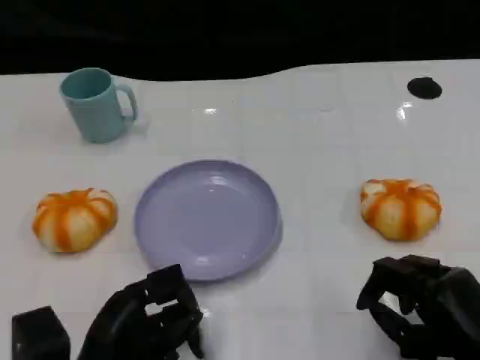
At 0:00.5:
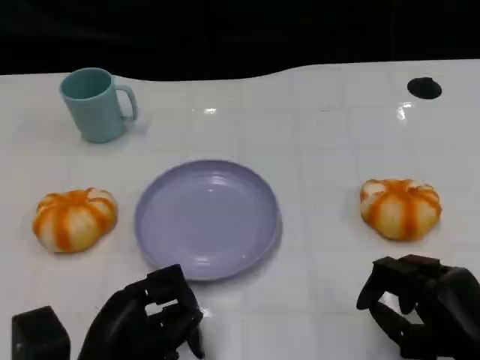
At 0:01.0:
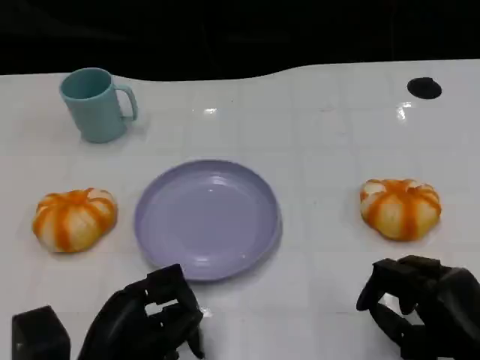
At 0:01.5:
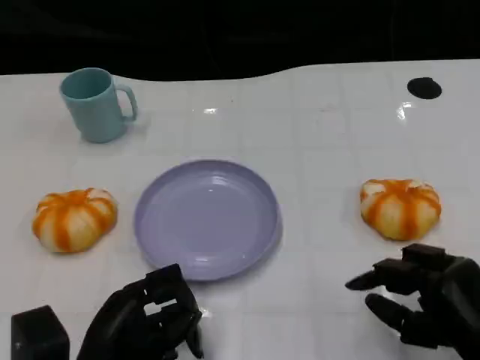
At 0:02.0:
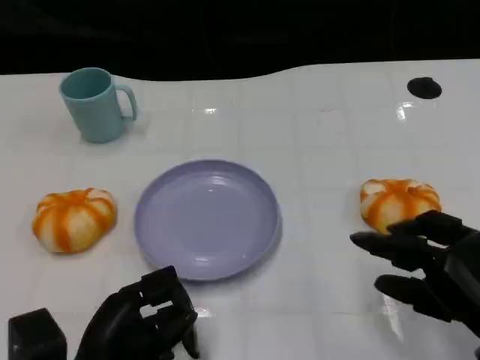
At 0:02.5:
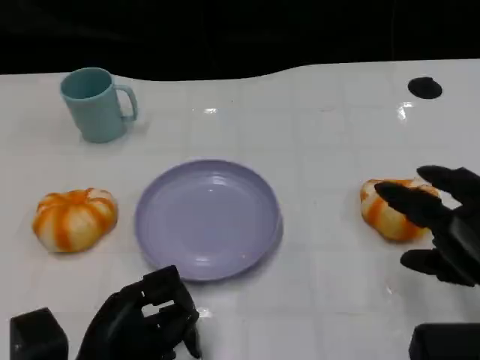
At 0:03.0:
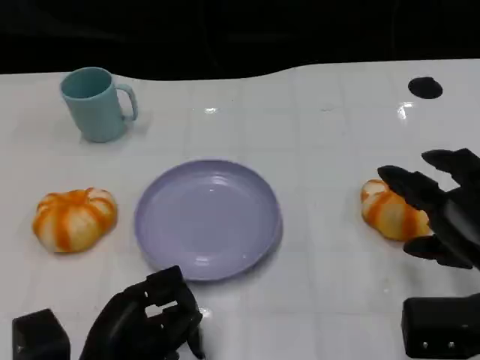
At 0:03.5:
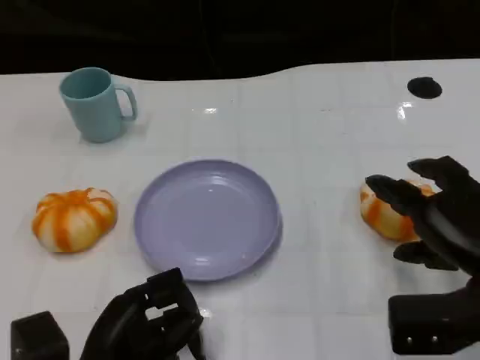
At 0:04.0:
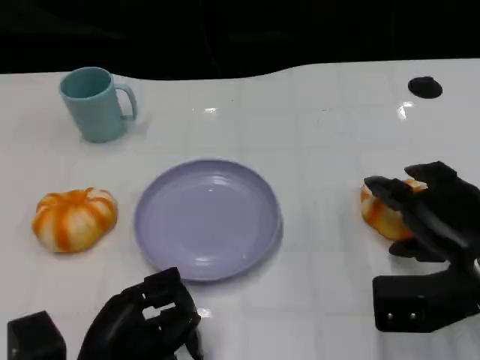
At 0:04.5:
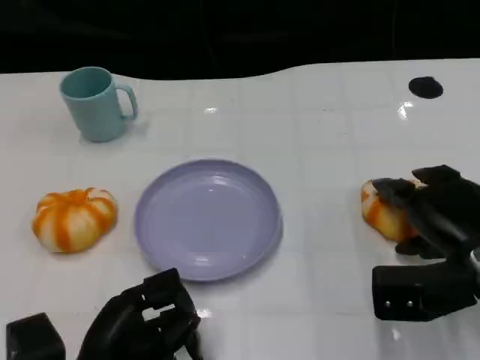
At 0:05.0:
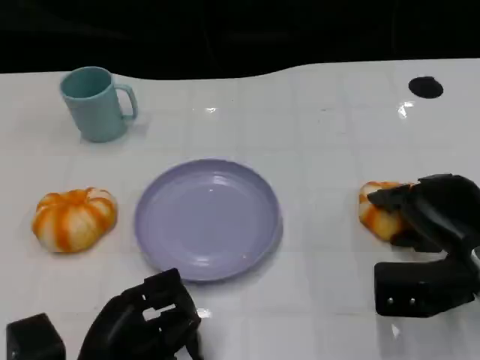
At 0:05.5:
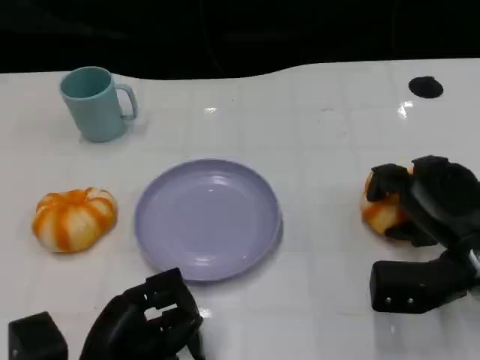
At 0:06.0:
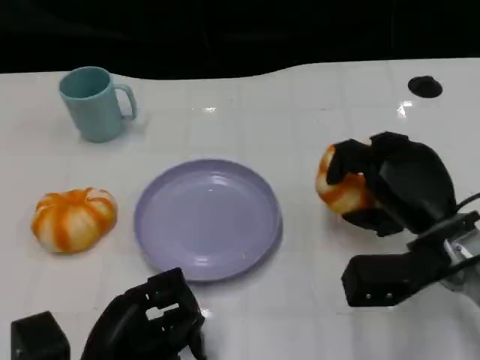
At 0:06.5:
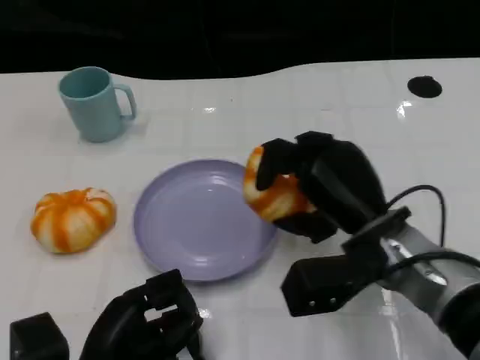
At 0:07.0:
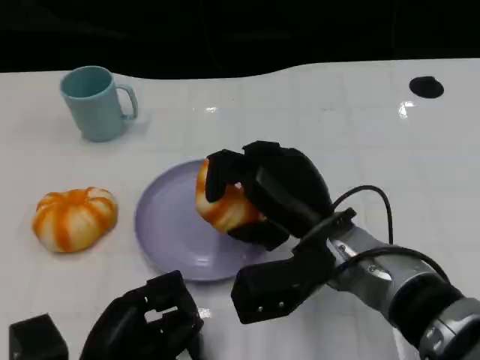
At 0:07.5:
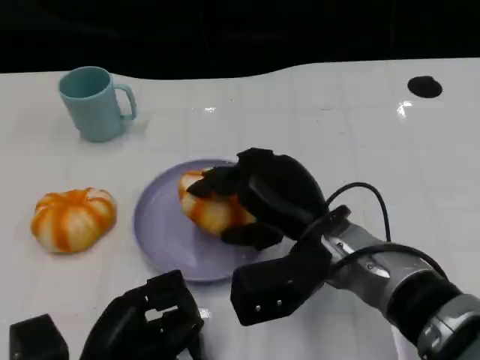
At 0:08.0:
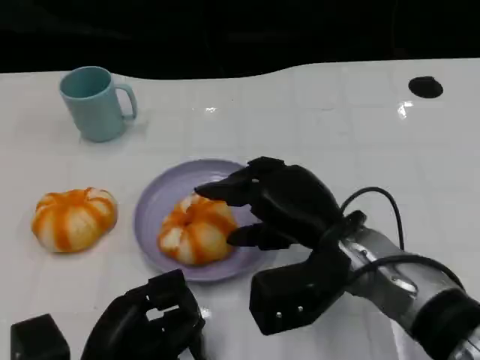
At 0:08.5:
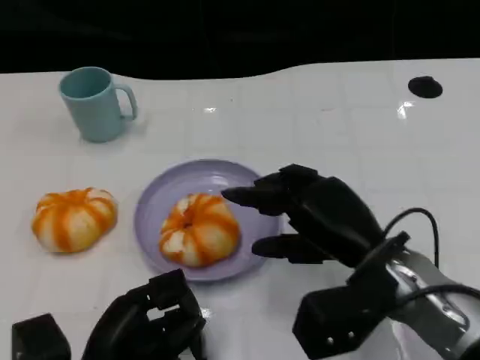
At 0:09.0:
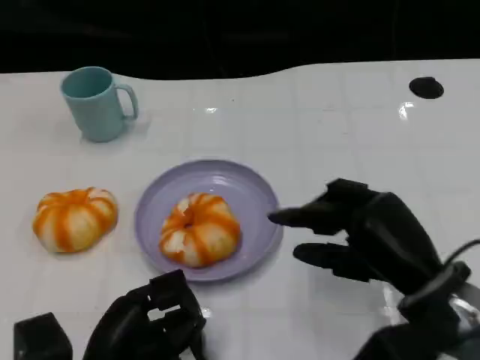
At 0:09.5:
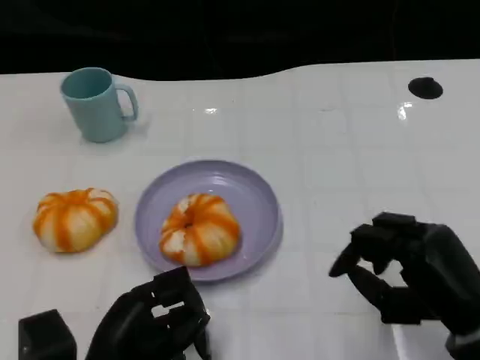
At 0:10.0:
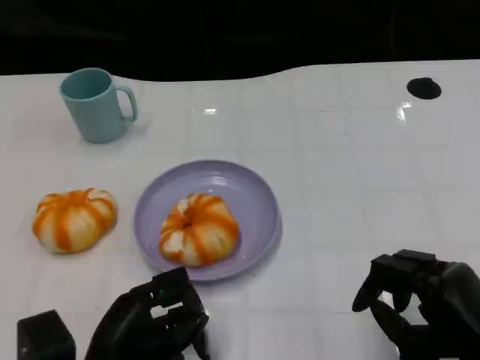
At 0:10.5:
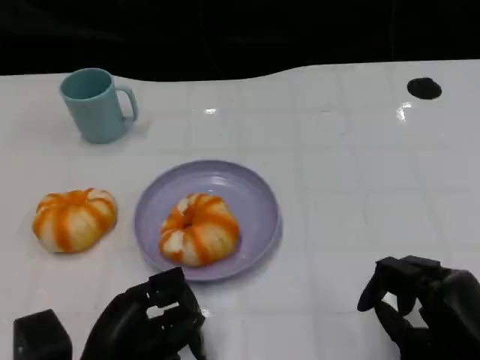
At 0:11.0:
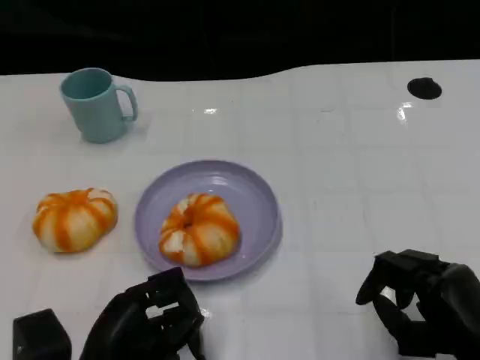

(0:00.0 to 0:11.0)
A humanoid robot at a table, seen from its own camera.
Task of the whole recording: Grasp the bread from the table and place it into the plate.
0:00.0 - 0:02.0: The hands make only small movements.
0:02.0 - 0:03.5: The right hand travels forward by approximately 5 cm.
0:03.5 - 0:05.5: The right hand moves about 5 cm.
0:05.5 - 0:07.5: The right hand goes about 15 cm to the left.
0:07.5 - 0:09.0: The right hand moves to the right and backward, approximately 10 cm.
0:09.0 - 0:11.0: The right hand travels backward by approximately 5 cm.

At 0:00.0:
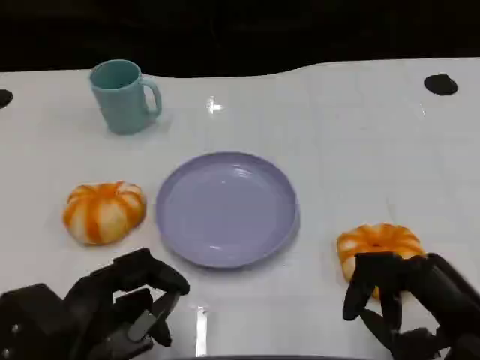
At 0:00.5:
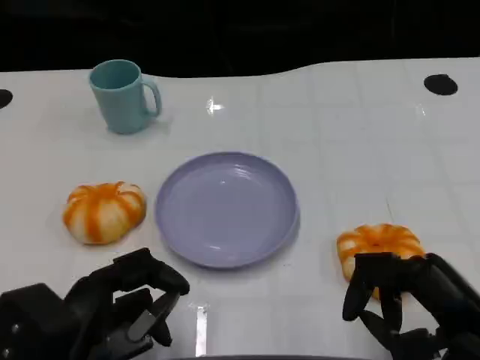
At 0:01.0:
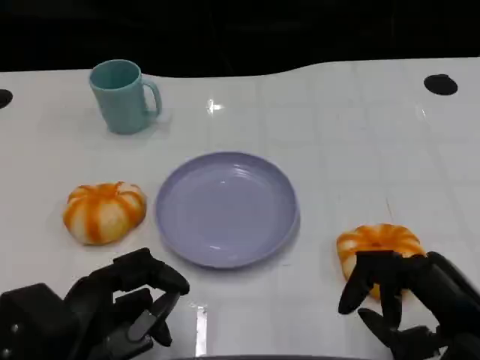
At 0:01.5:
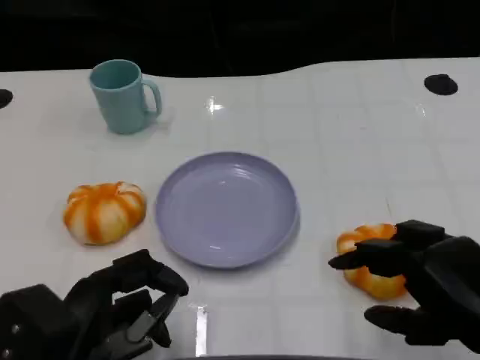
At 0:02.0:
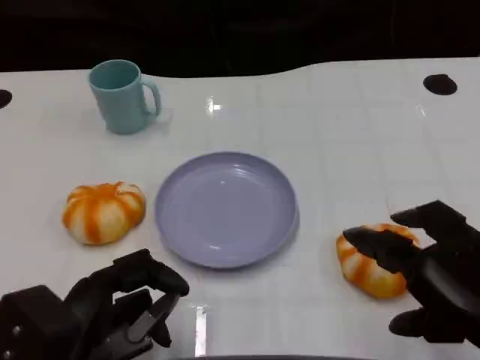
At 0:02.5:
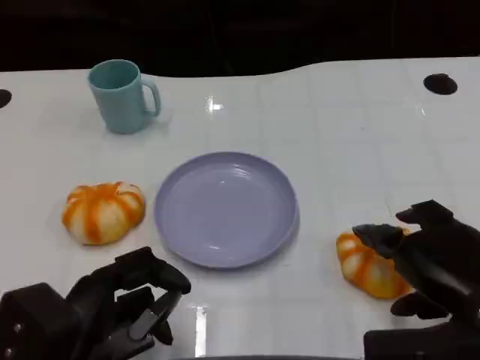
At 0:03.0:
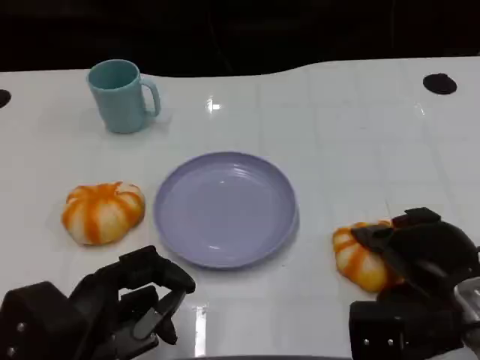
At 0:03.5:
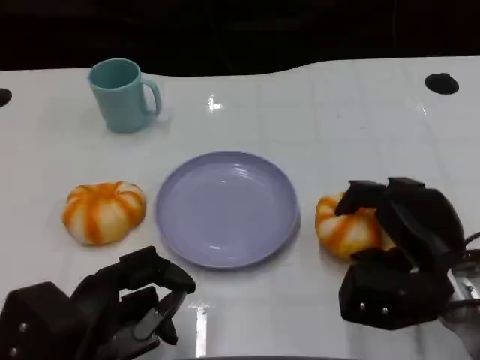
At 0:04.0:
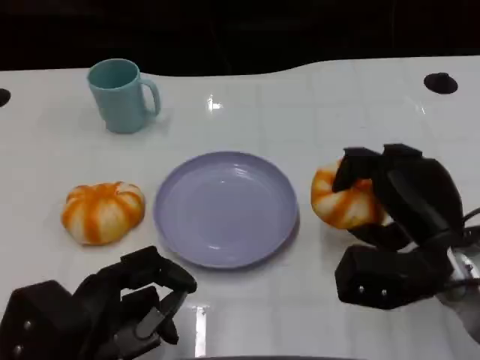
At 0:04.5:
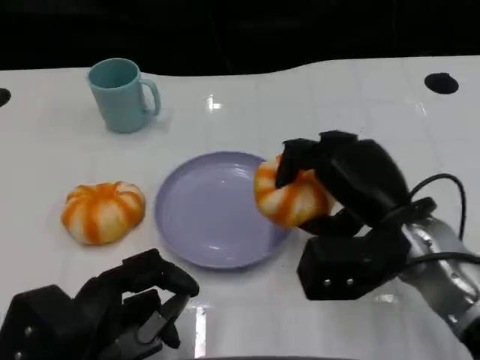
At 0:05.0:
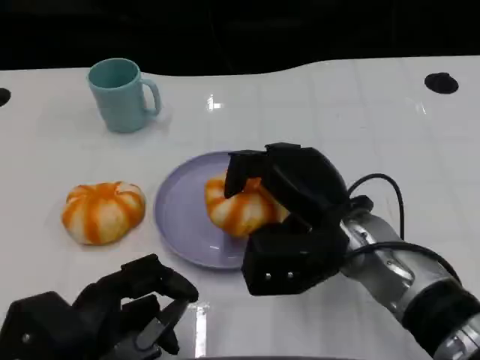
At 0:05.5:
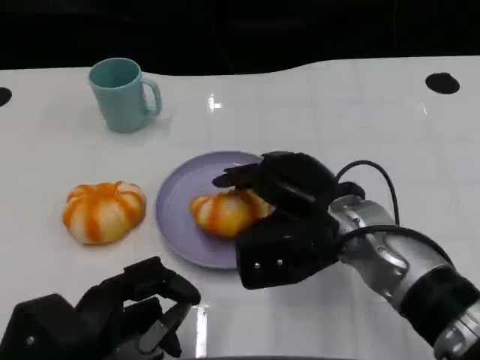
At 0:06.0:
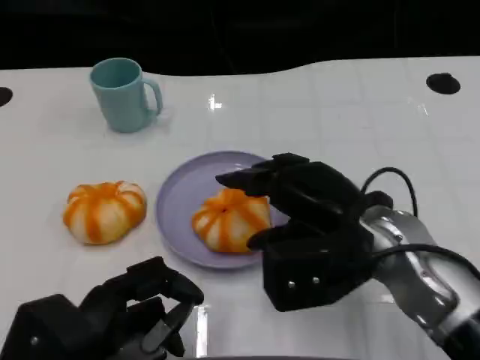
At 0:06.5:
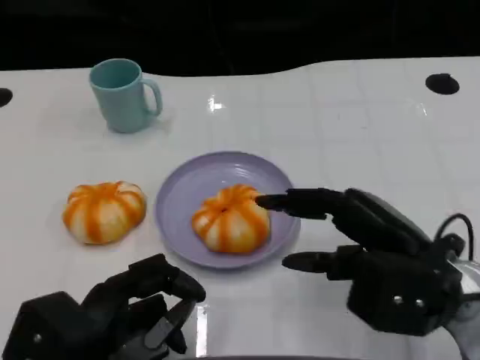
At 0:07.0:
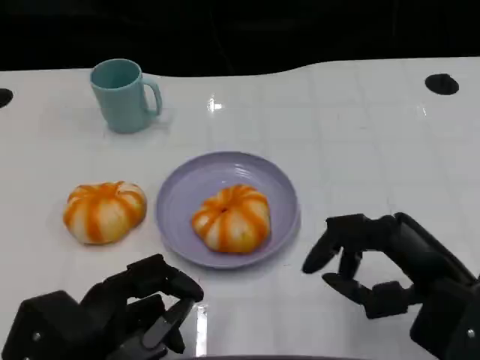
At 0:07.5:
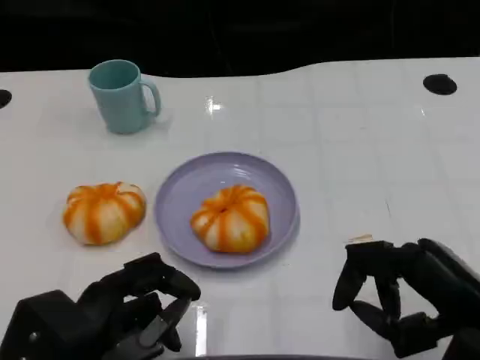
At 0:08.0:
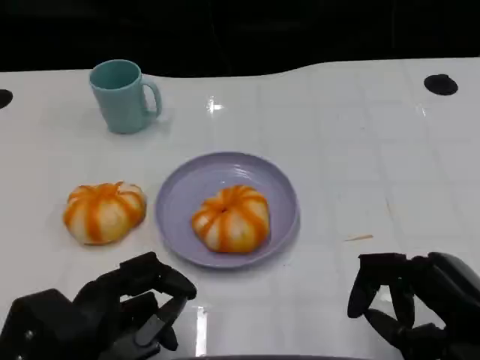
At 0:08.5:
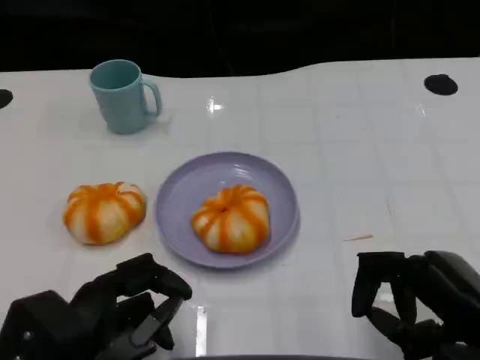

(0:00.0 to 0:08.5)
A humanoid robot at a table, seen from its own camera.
Task of the whole recording: Grasp the bread from the table and place it into the plate.
0:02.0 - 0:04.0: The right hand heads forward and downward, covering roughly 10 cm.
0:04.0 - 0:06.5: The right hand travels to the left and back again, approximately 10 cm each way.
0:06.5 - 0:08.5: The right hand heads backward, covering roughly 5 cm.

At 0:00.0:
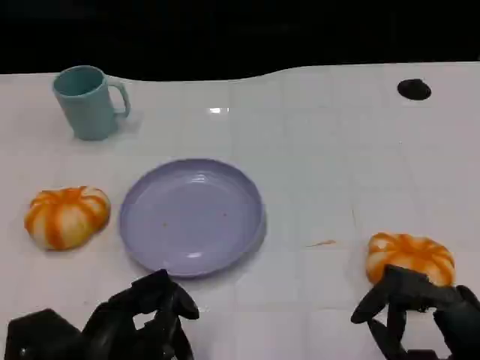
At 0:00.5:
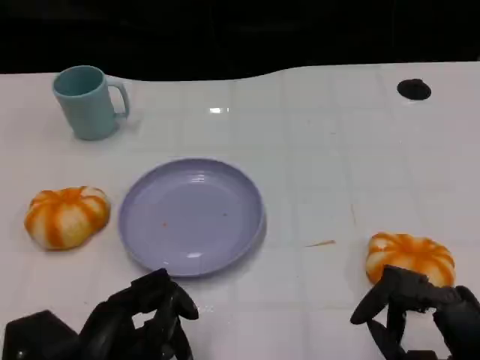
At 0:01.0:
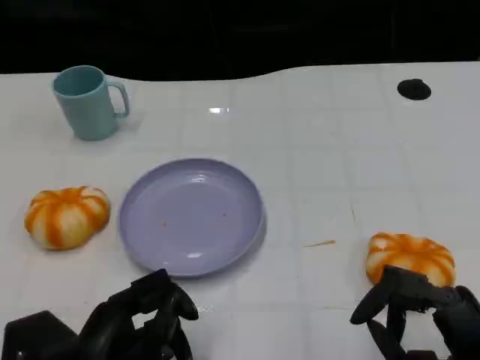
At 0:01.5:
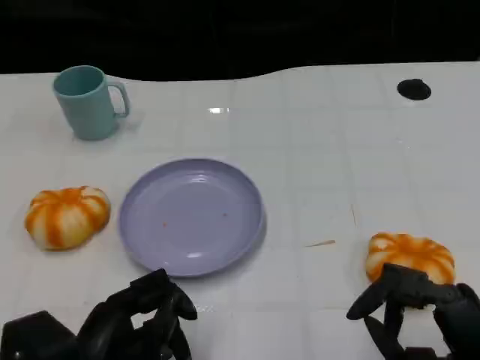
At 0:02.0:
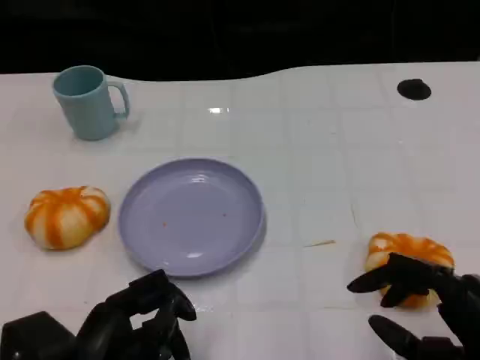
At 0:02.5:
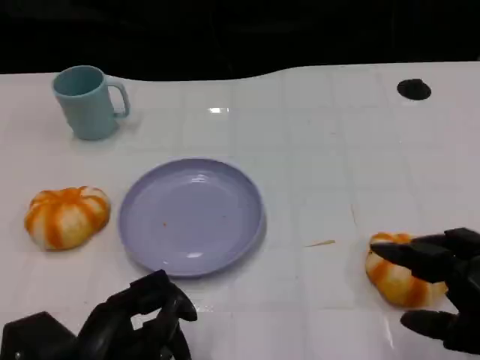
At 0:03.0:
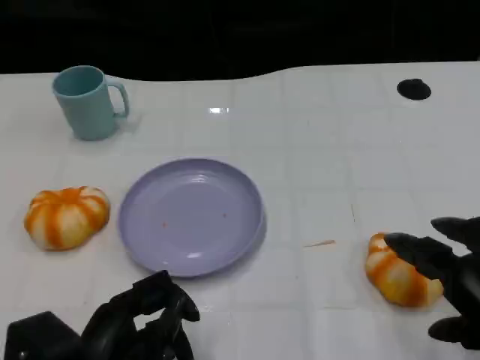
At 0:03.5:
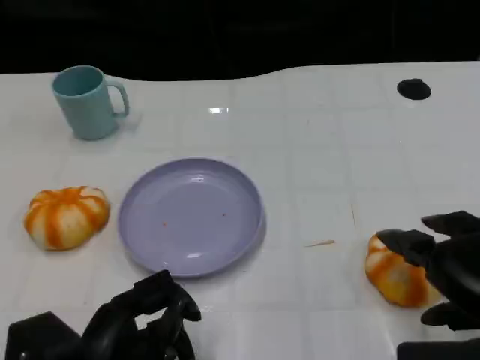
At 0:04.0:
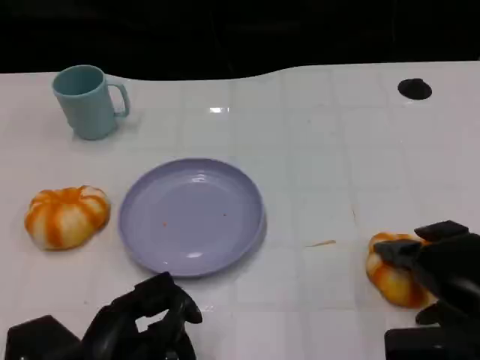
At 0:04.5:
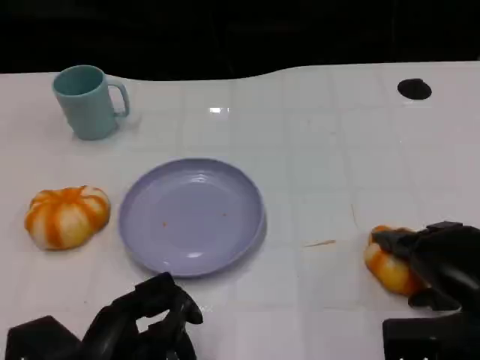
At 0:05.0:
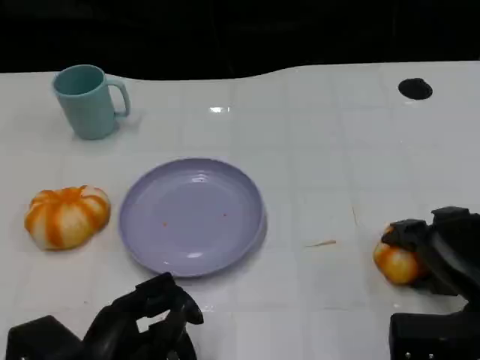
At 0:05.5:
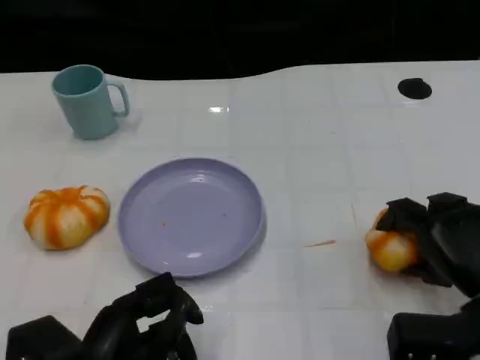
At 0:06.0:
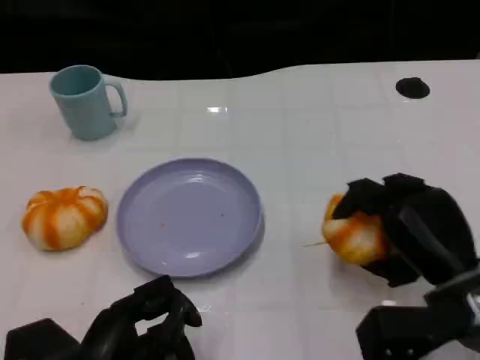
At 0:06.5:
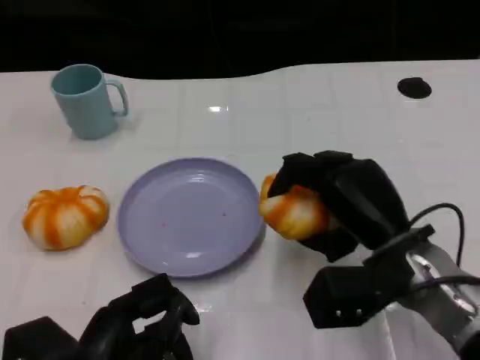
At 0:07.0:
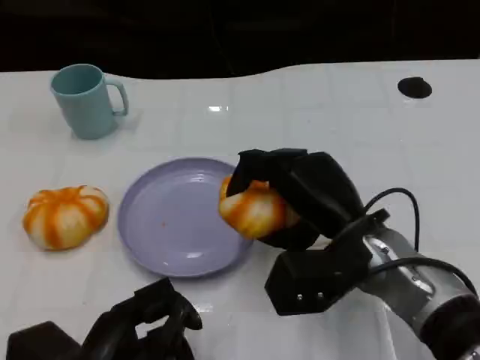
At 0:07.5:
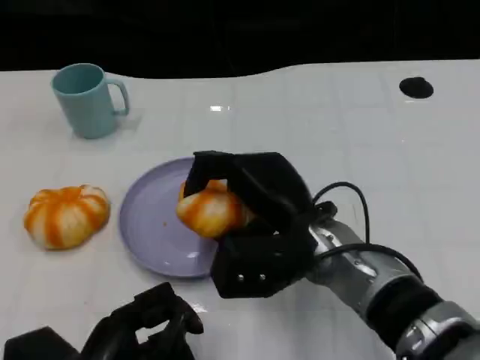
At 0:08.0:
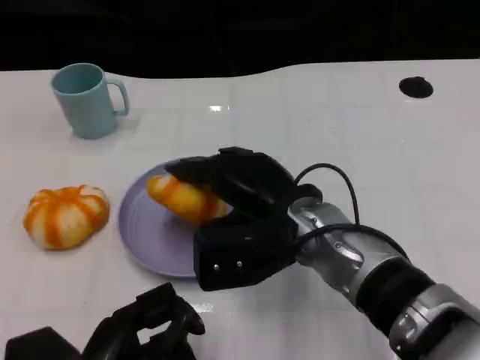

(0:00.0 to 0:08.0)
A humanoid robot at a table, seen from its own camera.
Task of the whole recording: Grasp the bread from the table and place it into the plate.
0:00.0 - 0:02.0: The hands make only small movements.
0:02.0 - 0:04.0: The right hand shifts approximately 5 cm forward.
0:04.0 - 0:06.0: The right hand moves approximately 5 cm.
0:06.0 - 0:08.0: The right hand travels to the left by approximately 15 cm.
